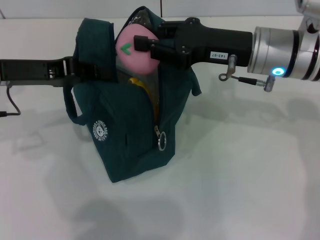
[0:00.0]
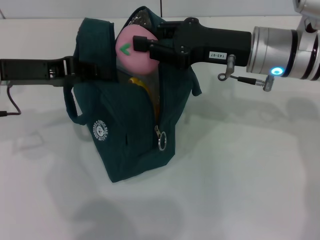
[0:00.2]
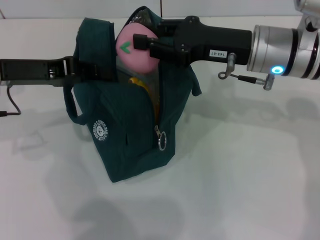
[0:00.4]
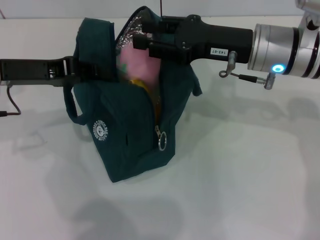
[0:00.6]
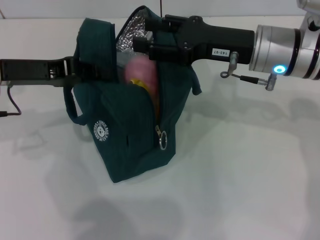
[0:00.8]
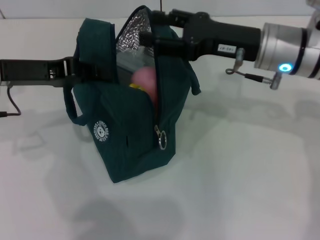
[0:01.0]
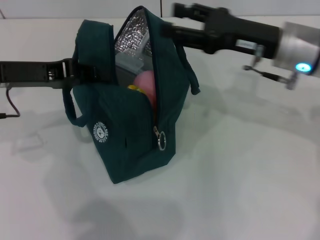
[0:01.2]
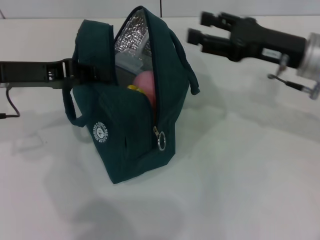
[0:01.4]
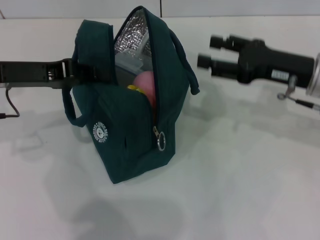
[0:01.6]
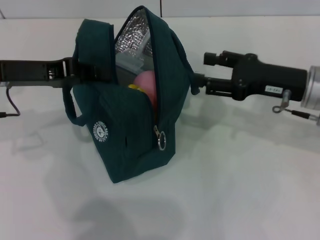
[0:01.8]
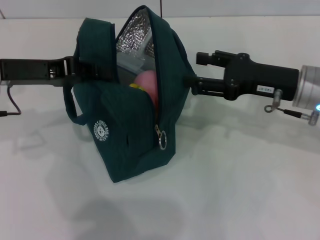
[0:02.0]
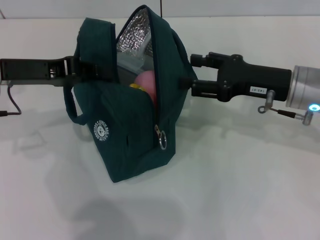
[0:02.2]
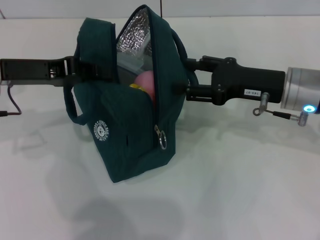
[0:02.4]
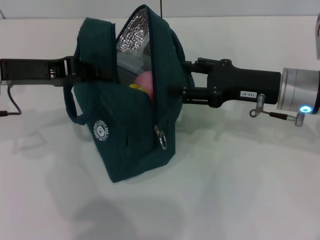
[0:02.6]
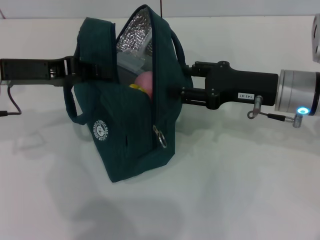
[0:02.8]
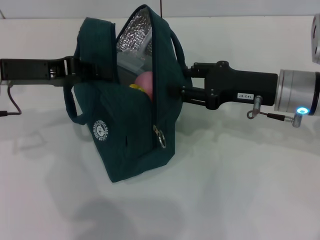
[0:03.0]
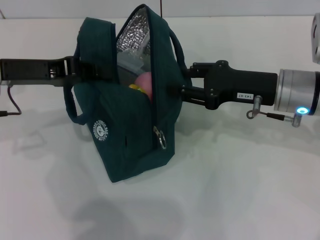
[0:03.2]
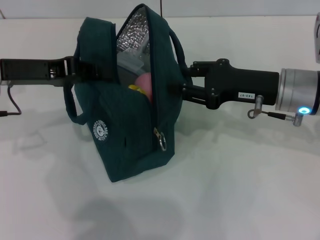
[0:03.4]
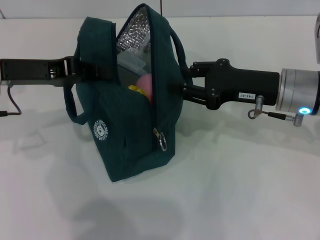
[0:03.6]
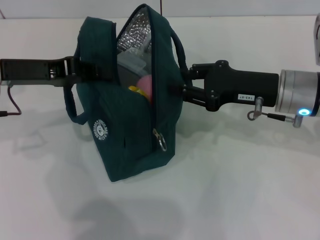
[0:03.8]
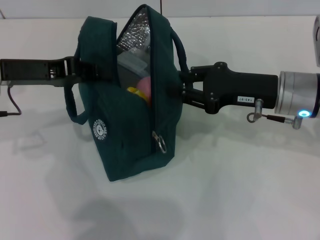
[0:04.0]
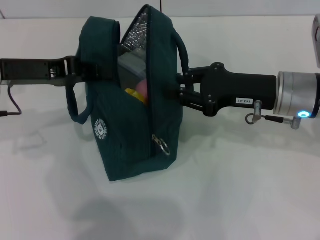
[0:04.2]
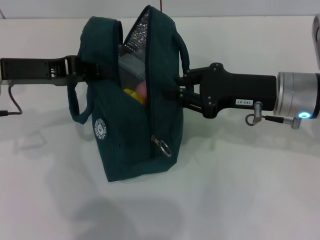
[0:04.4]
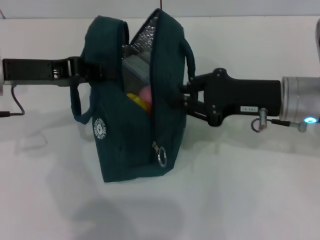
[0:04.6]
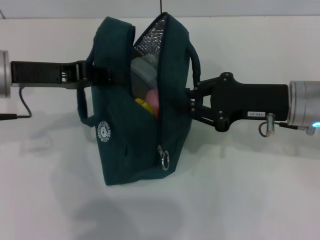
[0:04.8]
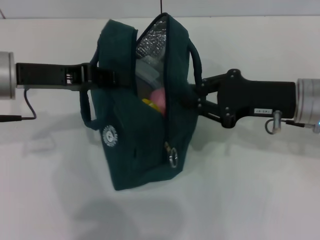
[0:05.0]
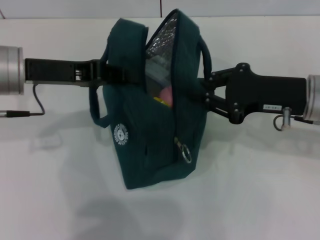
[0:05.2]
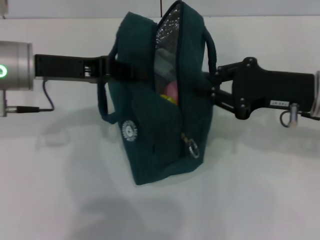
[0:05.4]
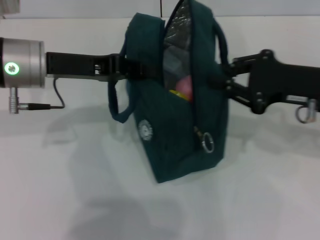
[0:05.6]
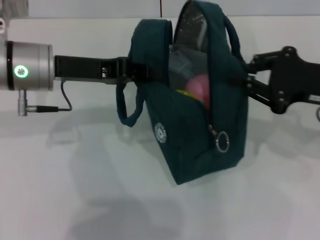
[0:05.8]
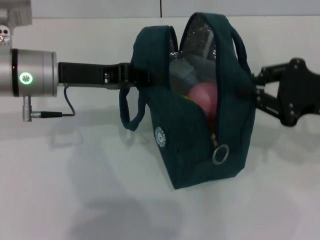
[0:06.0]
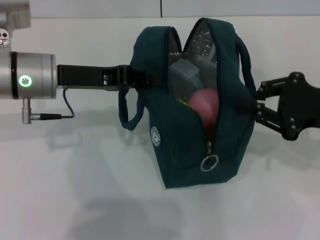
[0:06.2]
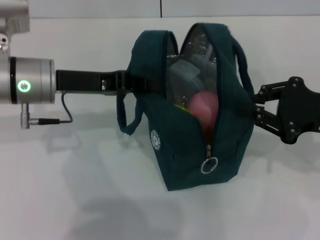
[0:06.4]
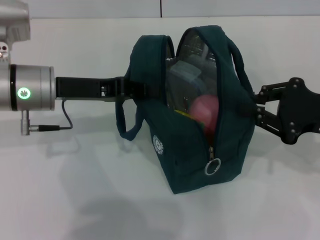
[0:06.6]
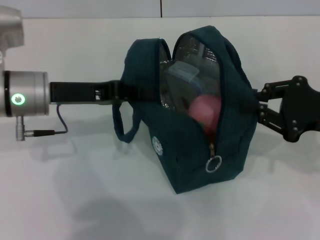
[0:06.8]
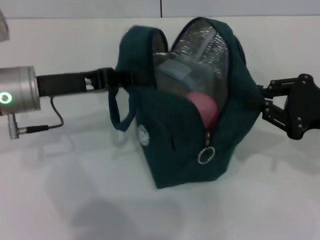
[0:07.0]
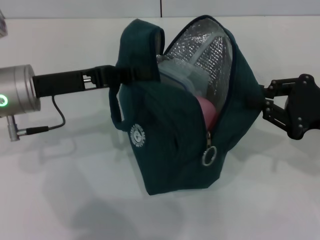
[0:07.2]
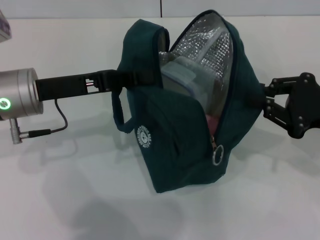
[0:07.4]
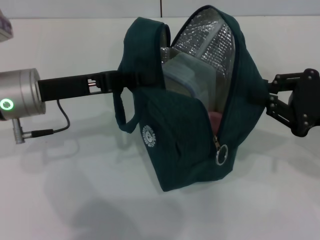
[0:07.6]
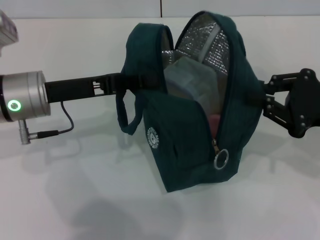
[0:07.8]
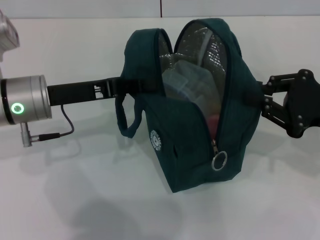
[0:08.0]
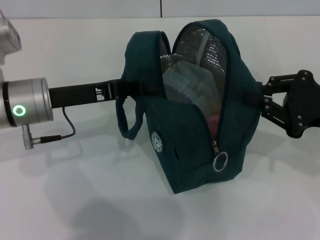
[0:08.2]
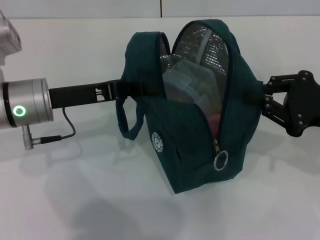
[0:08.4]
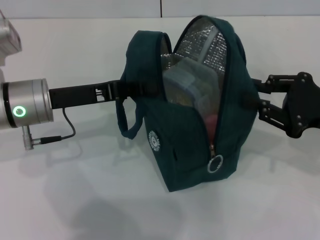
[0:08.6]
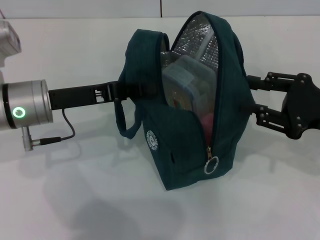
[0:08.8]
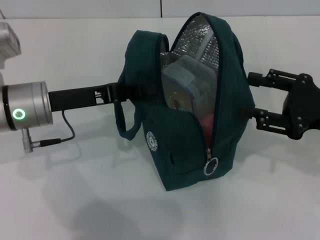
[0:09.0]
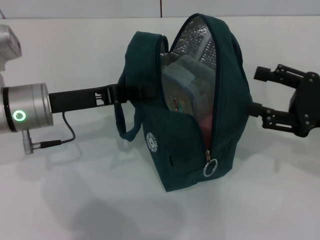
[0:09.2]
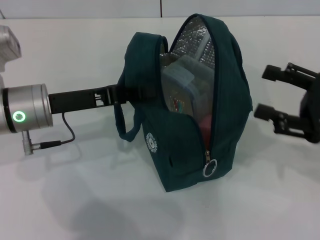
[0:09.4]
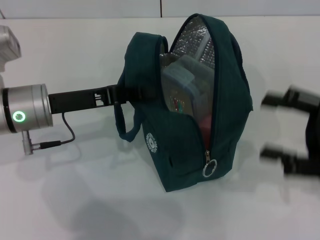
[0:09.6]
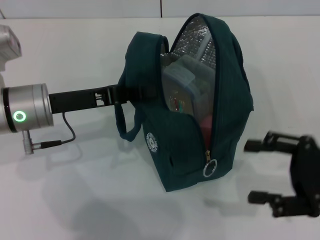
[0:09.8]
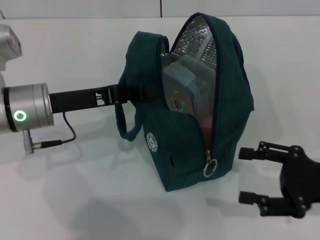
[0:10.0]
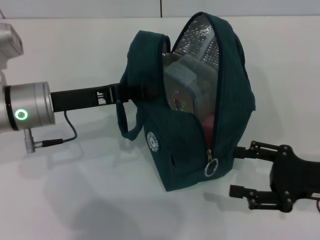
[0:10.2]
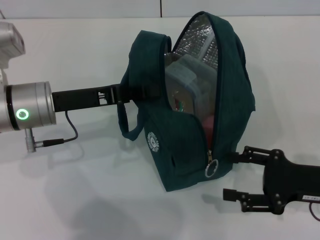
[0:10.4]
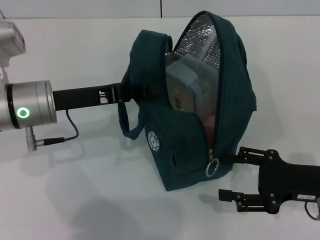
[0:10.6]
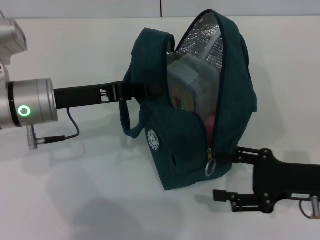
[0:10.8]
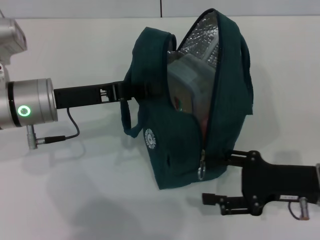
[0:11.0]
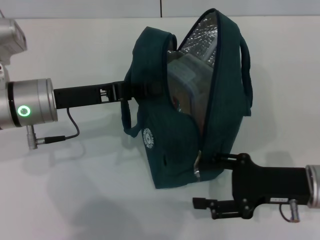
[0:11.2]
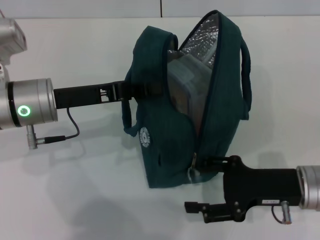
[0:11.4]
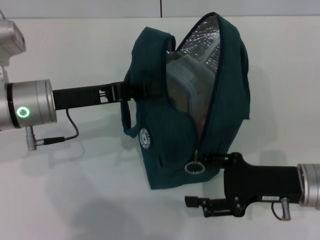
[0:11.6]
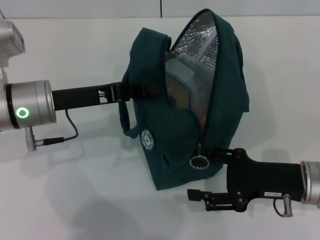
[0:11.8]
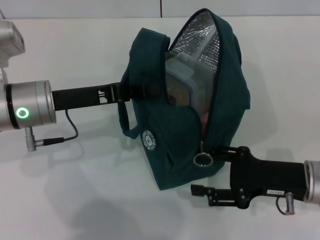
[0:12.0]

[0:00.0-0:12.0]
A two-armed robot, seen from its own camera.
Step, 0:01.0 to 0:09.2: Hold the lunch bag with your right hand.
0:00.0 to 0:01.6: The right gripper moves to the right, approximately 10 cm, and opens its fingers.
0:01.6 to 0:03.0: The grippers stay close to where they were, moving slightly.
0:03.0 to 0:04.4: The right gripper closes up.
0:04.4 to 0:06.0: The right gripper travels to the right by some 10 cm; the left gripper is displaced to the right by about 5 cm.
0:07.6 to 0:09.0: There are only small adjustments of the grippers.
0:09.0 to 0:10.4: The right gripper is displaced downward by roughly 5 cm, and opens its fingers.
0:10.4 to 0:12.0: The grippers stay close to where they were, moving slightly.

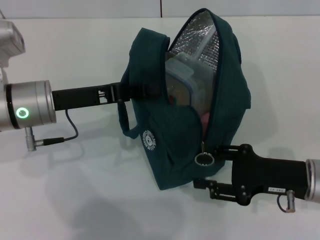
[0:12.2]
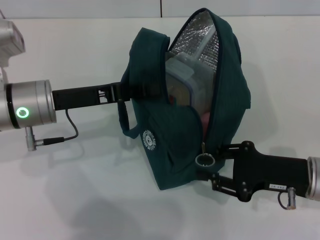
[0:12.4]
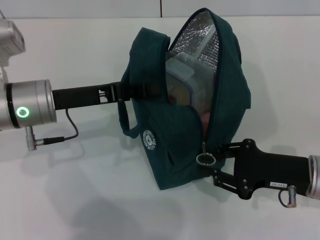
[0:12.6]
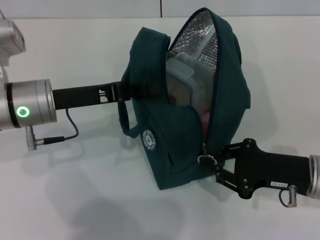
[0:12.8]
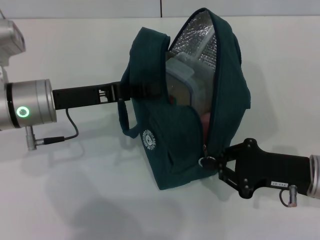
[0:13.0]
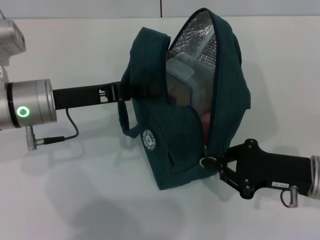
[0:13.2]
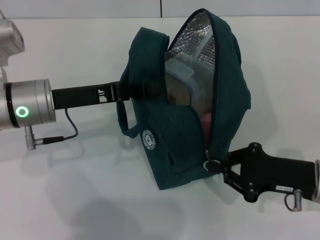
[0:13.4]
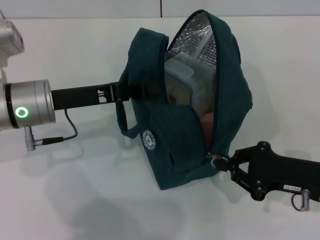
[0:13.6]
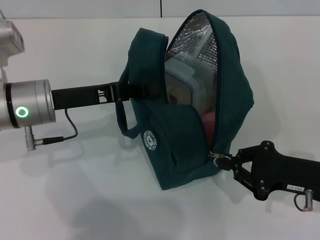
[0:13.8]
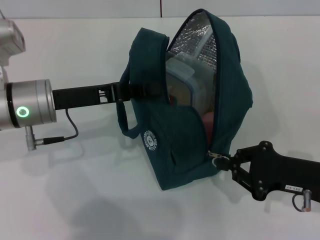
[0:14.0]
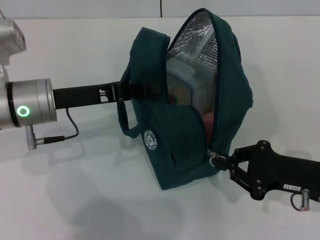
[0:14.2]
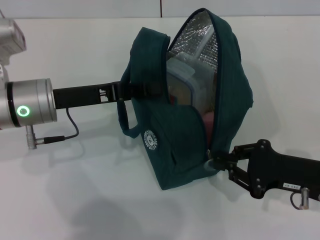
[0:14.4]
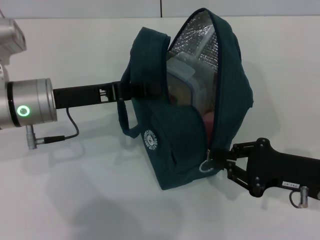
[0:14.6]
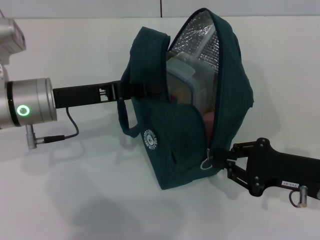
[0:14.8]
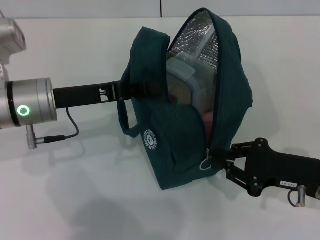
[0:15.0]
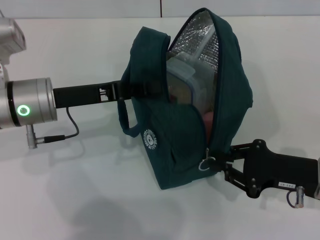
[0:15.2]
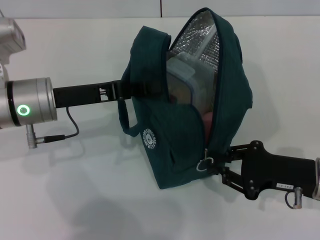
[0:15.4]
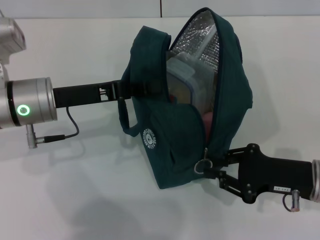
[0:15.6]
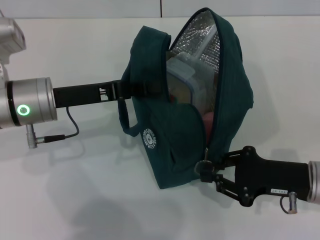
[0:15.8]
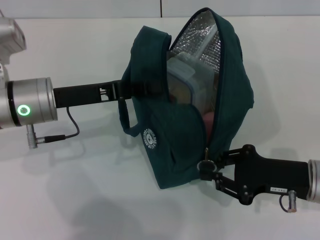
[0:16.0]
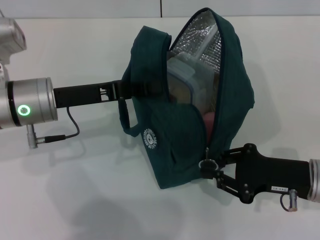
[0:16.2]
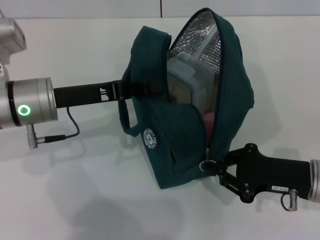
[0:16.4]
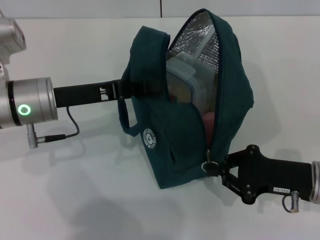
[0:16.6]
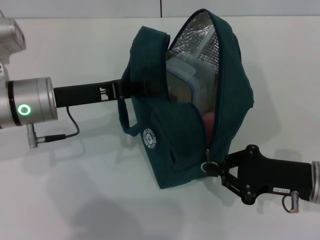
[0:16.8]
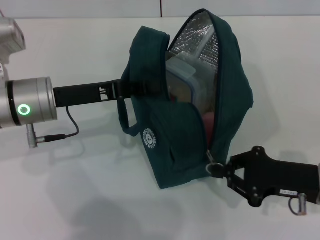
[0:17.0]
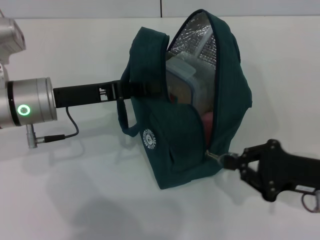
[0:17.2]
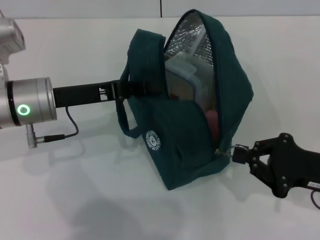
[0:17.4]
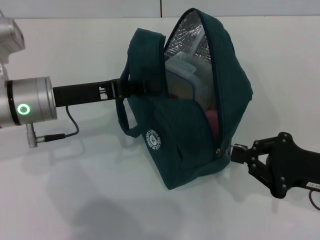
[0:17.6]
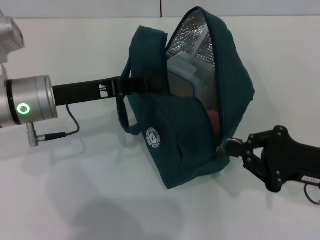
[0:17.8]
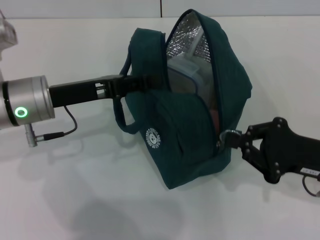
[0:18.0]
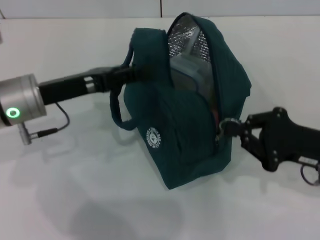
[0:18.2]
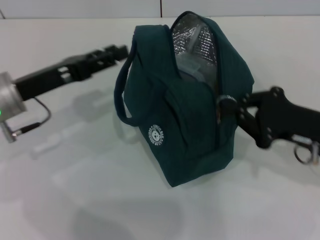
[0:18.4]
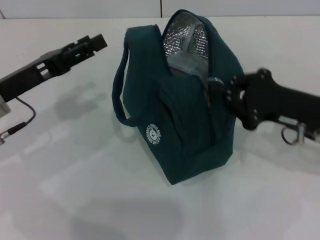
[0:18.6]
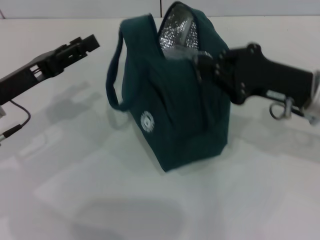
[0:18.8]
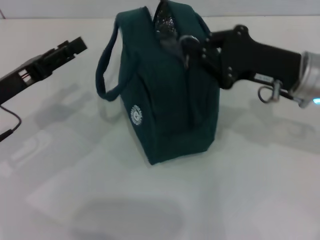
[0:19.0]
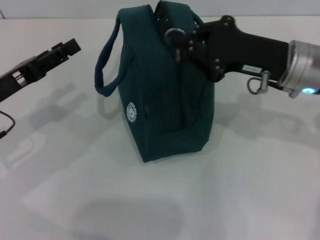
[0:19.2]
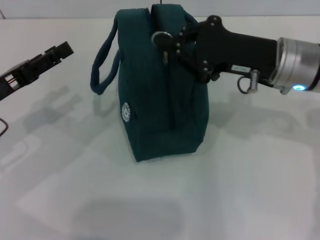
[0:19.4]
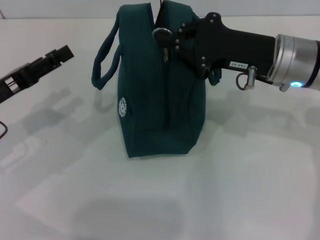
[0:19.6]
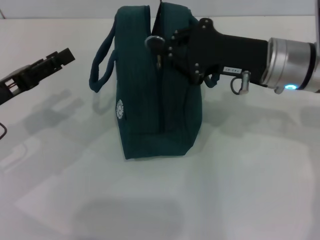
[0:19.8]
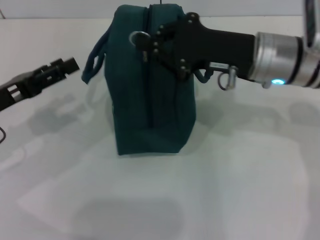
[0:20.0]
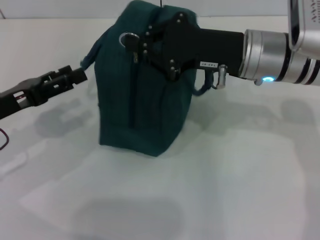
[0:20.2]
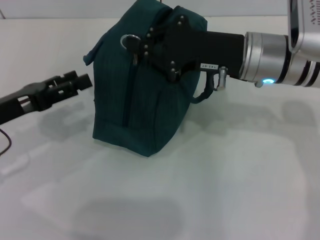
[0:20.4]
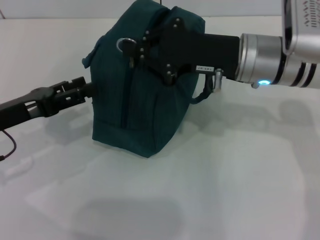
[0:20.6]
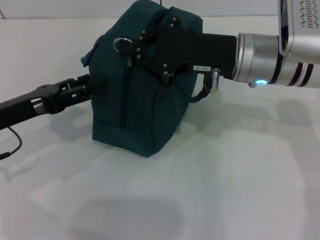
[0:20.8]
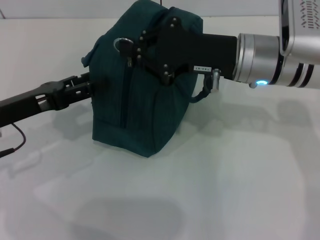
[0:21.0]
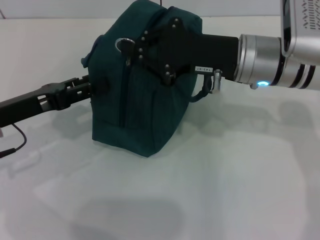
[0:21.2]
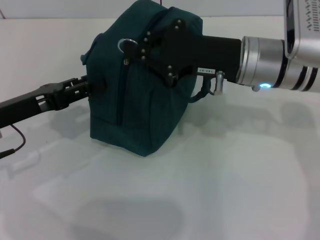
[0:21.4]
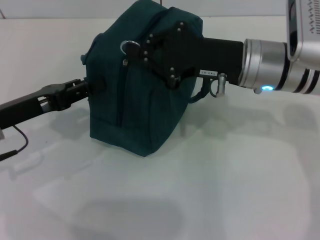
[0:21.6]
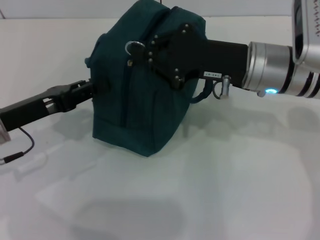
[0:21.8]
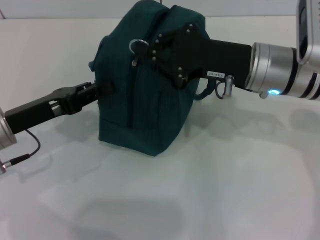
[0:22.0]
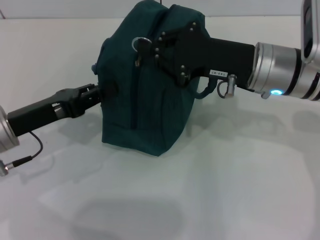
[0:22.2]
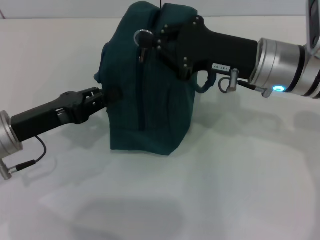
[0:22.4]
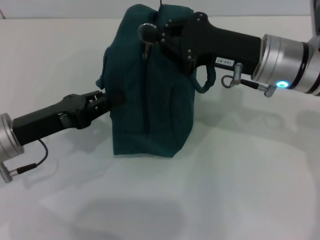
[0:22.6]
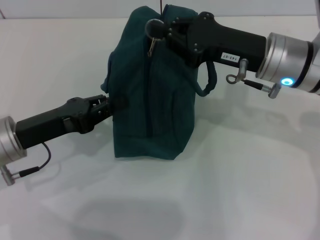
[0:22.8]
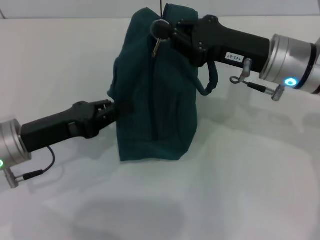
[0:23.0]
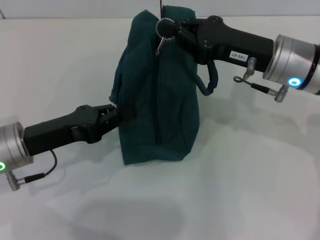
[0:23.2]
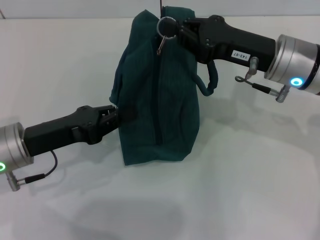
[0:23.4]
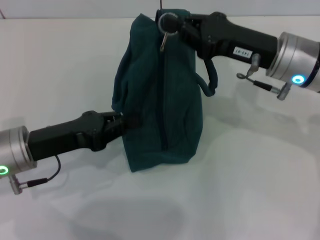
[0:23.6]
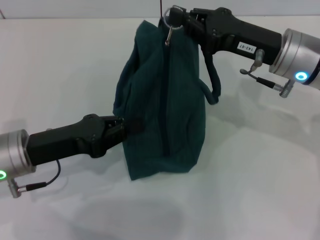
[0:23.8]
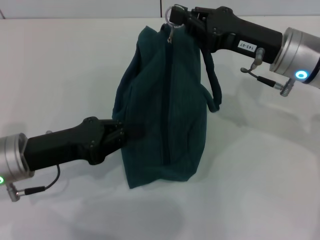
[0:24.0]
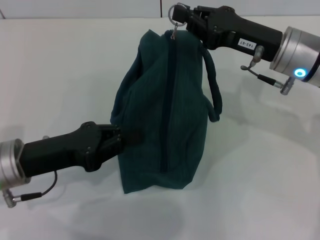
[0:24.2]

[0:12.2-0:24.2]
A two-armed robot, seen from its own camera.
Step, 0:12.2 to 0:18.2: Hold the lunch bag with your left hand.
0:12.2 to 0:13.8: The right gripper closes.
0:13.8 to 0:15.2: Neither gripper changes place.
0:15.2 to 0:16.6: Neither gripper changes place.
0:18.2 to 0:19.8: The right gripper heads to the left, forward and upward, covering approximately 15 cm, while the left gripper travels to the left by some 10 cm, and opens.
0:21.2 to 0:22.6: The left gripper closes its fingers.
